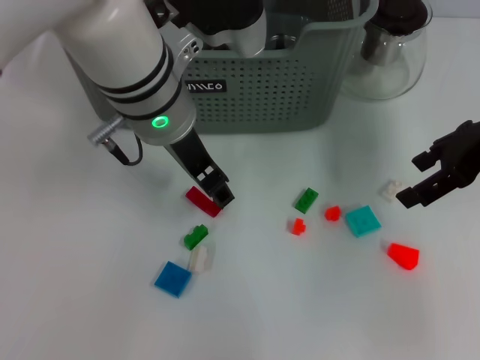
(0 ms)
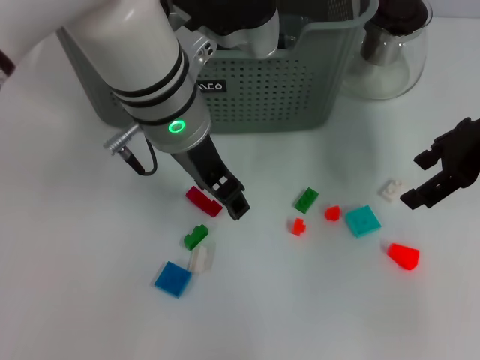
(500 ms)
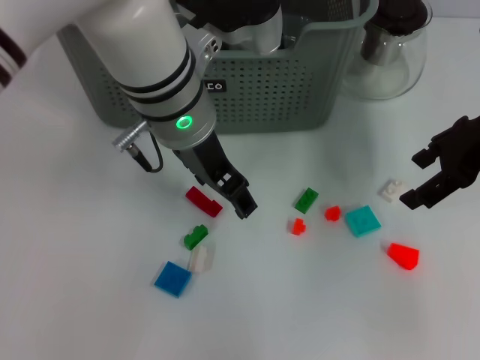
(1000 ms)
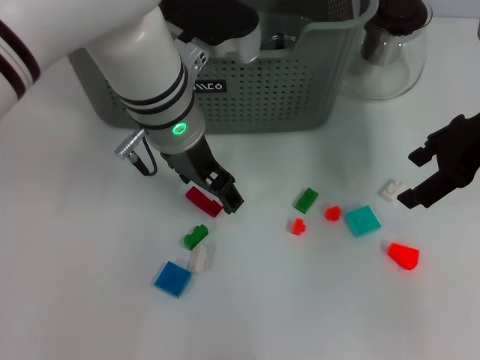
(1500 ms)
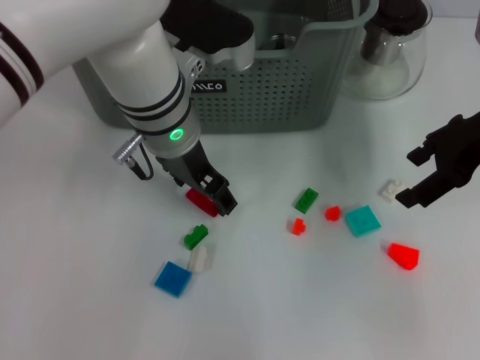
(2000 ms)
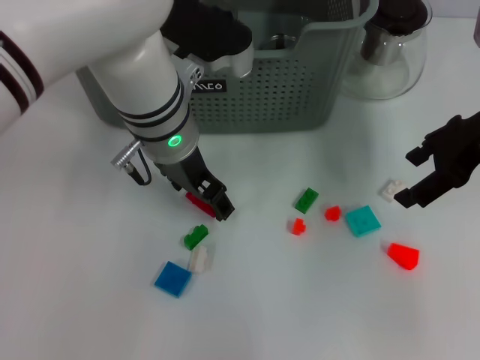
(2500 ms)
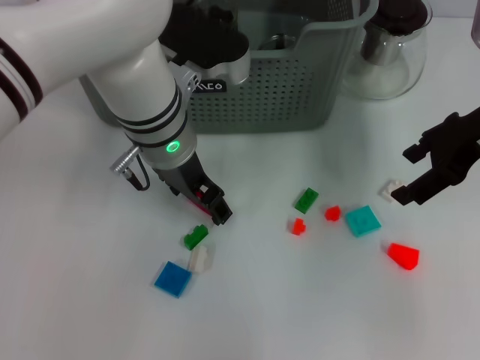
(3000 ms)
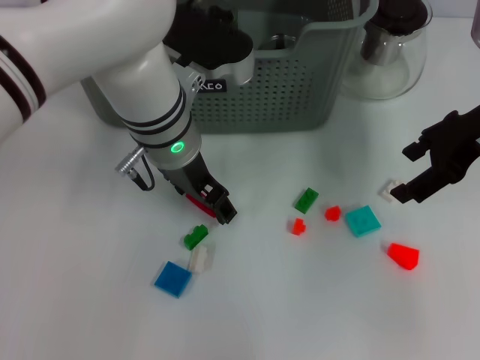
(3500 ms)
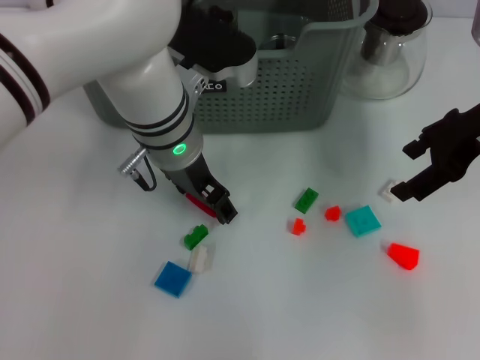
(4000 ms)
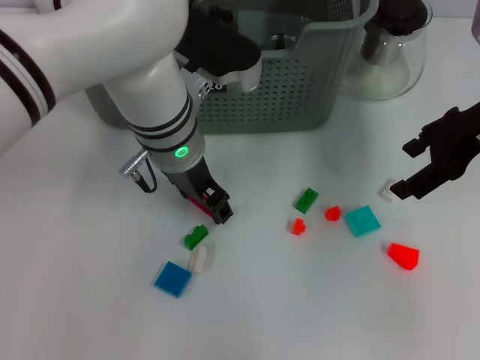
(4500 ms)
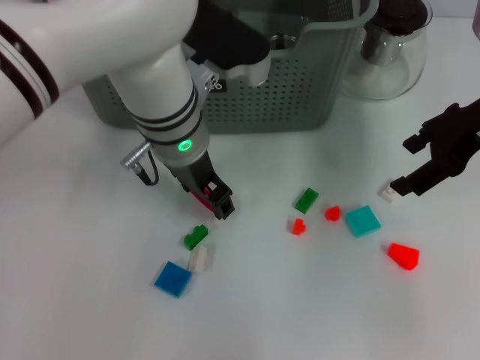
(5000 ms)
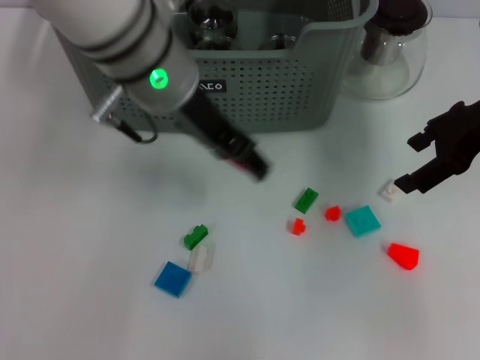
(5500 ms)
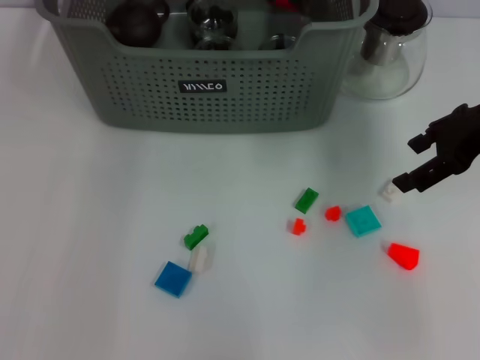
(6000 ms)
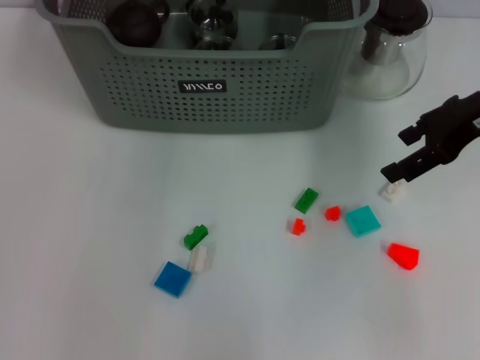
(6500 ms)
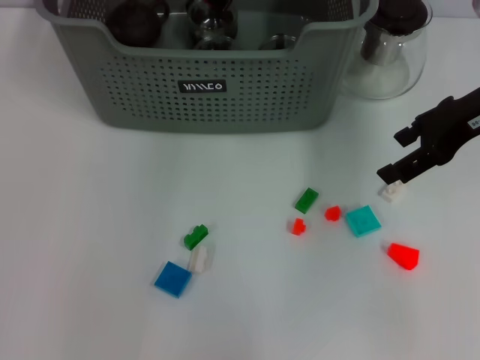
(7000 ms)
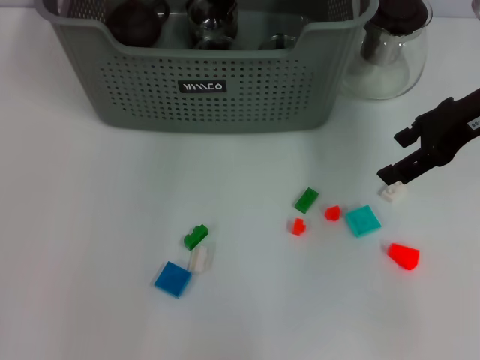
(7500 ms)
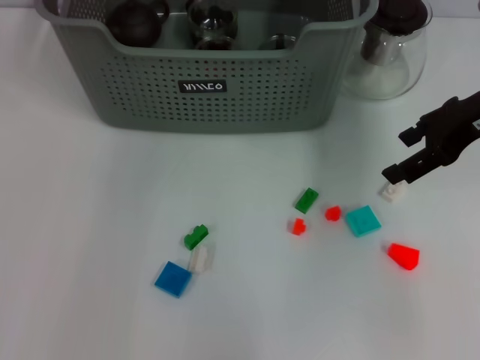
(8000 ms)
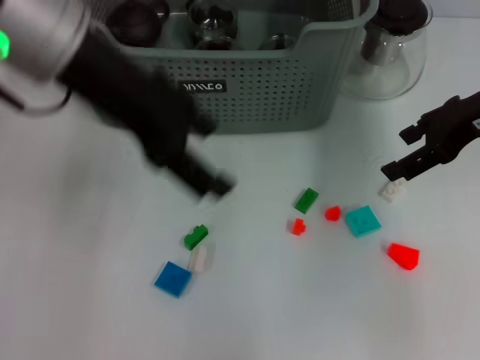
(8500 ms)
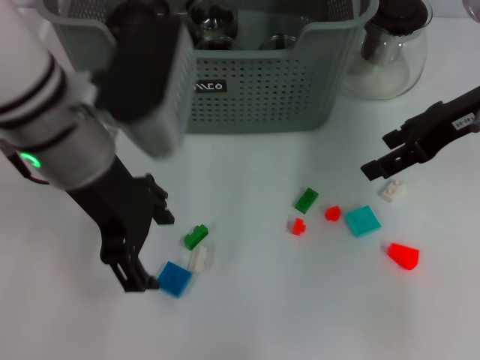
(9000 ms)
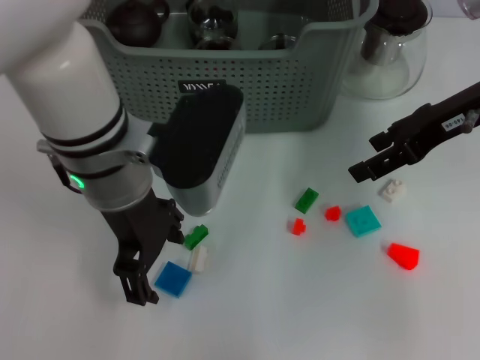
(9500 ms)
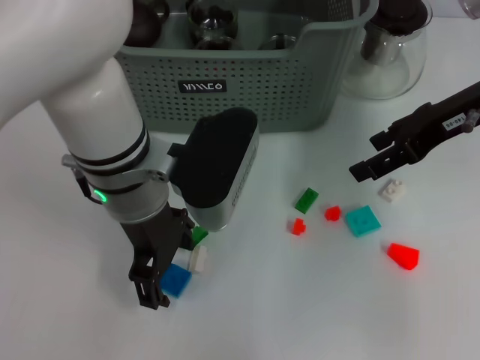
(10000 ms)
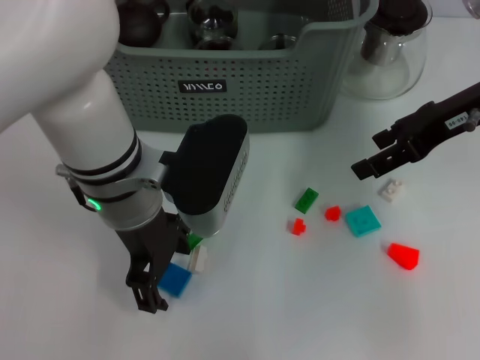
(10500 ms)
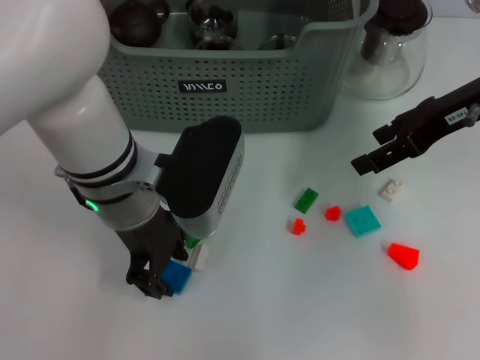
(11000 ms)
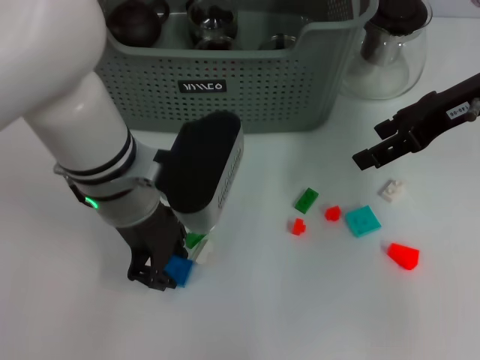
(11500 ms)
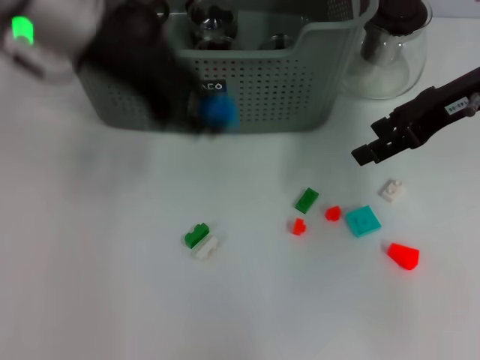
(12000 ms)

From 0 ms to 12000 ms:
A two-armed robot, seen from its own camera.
Task of the whole recording: pick up the teacup on the table and place it into the storage bin, pick up the block on the table and place it into the storage bin.
Step, from 0 ms to 5000 ms: Grasp the red block with left gripper.
Step, from 5500 ms to 8000 ms: Place the red block in the storage box with left gripper.
Step, from 8500 ms to 11000 ms: Grasp the dark blue block with left gripper.
From 0 ms to 4000 ms: The grippers make only small movements.
From 4000 ms to 6000 ms: The left gripper goes approximately 20 cm upward.
From 8000 ms to 10000 ms: The left gripper travels downward and backward by about 20 cm.
From 10000 ms to 12000 ms: The left gripper moves upward, to the left and forward, about 15 cm, and closes its fingers.

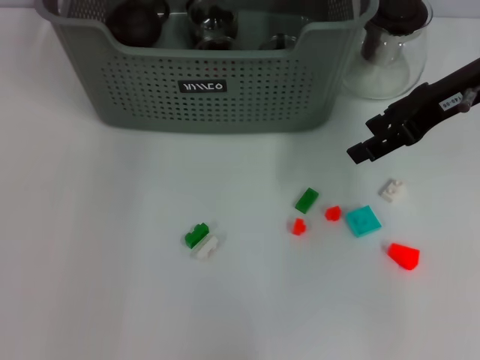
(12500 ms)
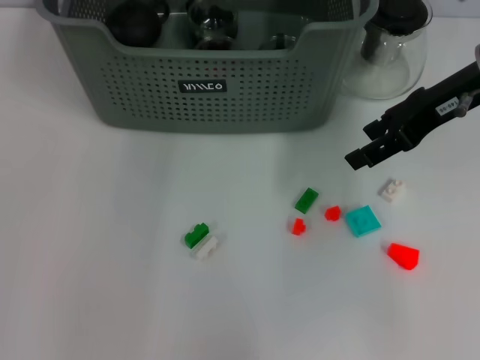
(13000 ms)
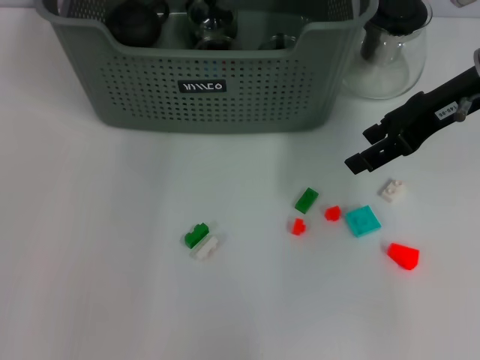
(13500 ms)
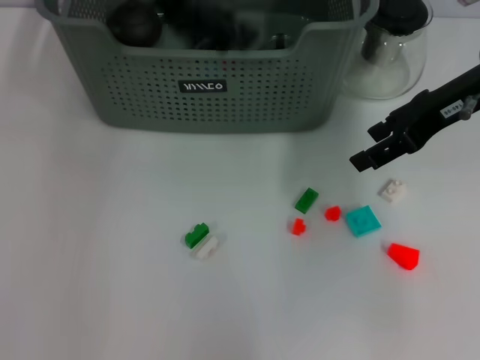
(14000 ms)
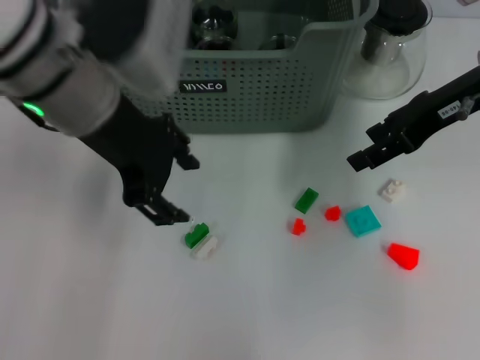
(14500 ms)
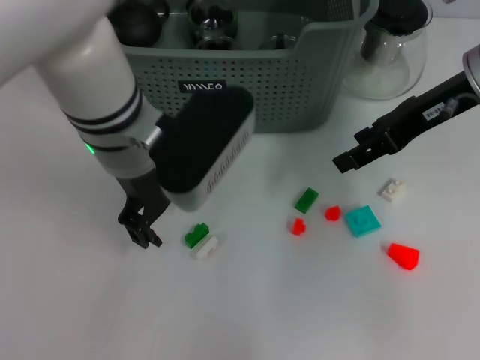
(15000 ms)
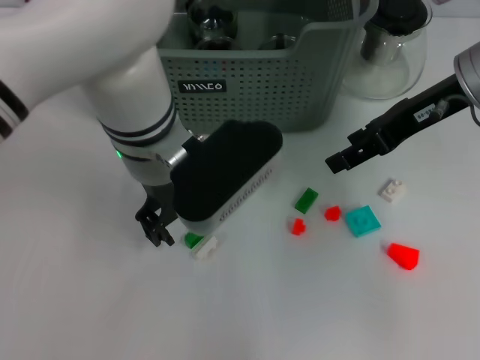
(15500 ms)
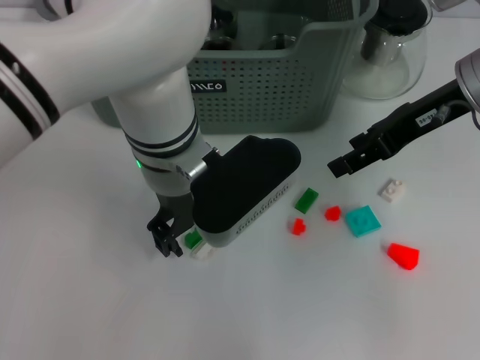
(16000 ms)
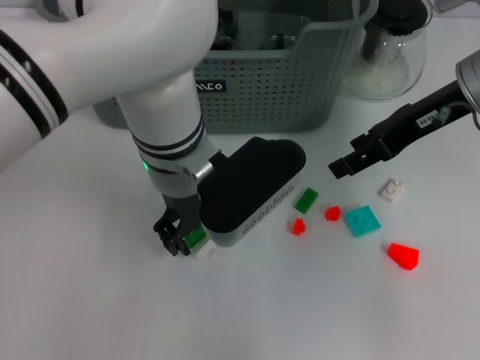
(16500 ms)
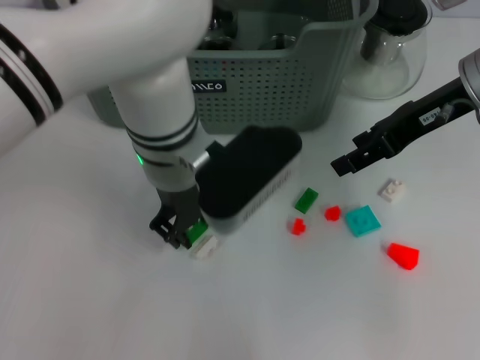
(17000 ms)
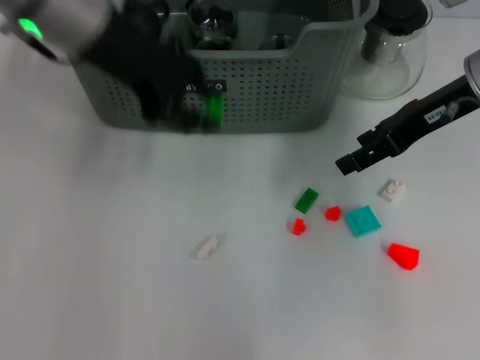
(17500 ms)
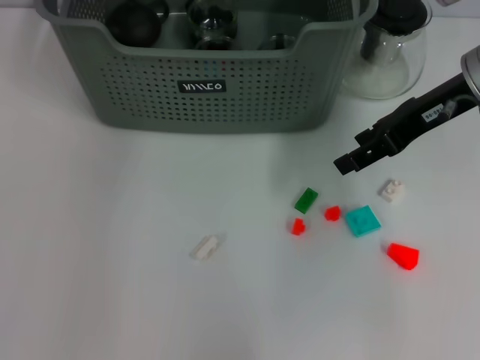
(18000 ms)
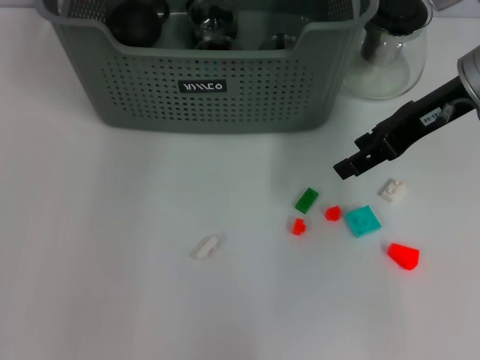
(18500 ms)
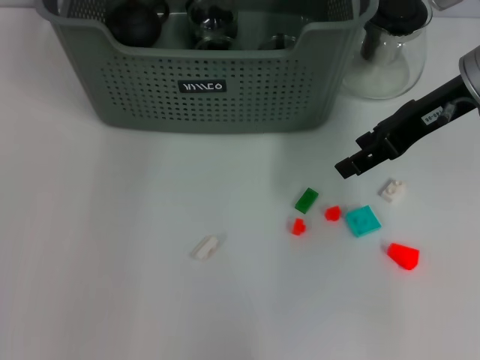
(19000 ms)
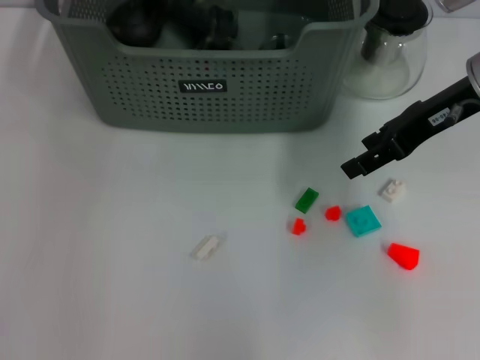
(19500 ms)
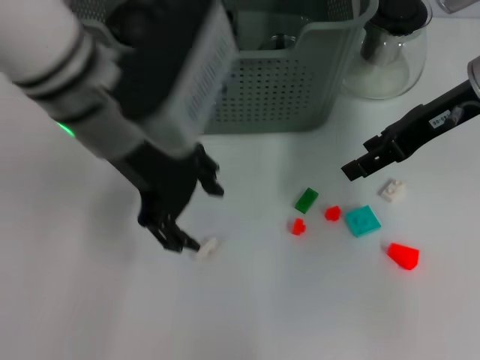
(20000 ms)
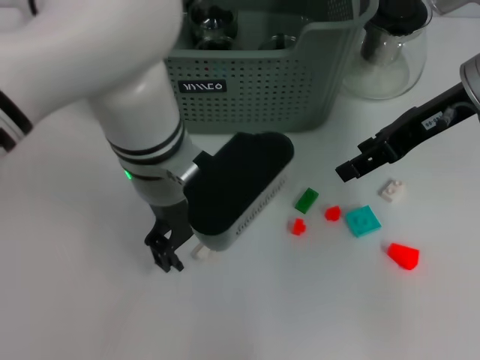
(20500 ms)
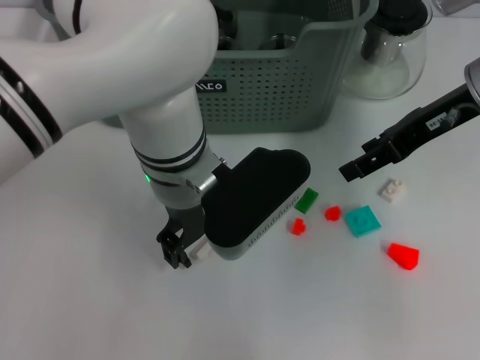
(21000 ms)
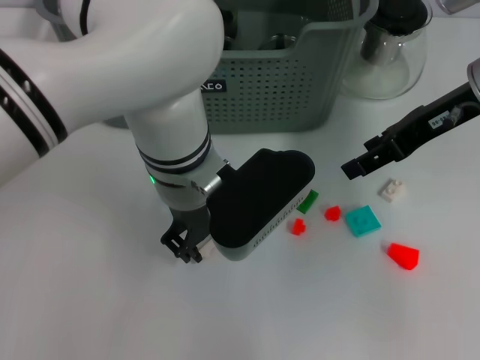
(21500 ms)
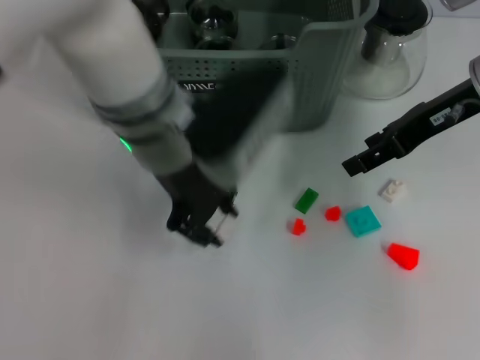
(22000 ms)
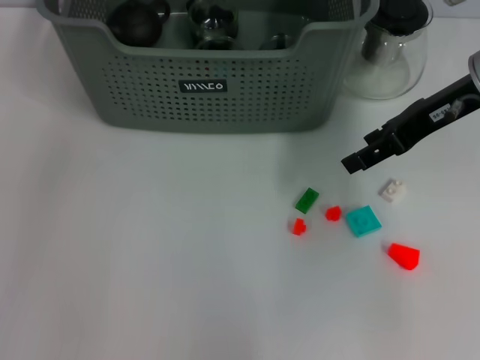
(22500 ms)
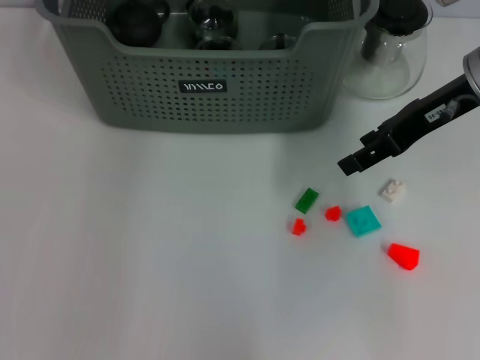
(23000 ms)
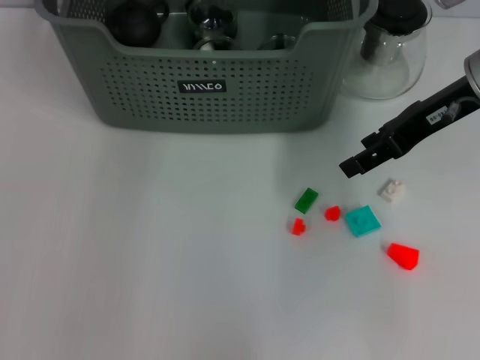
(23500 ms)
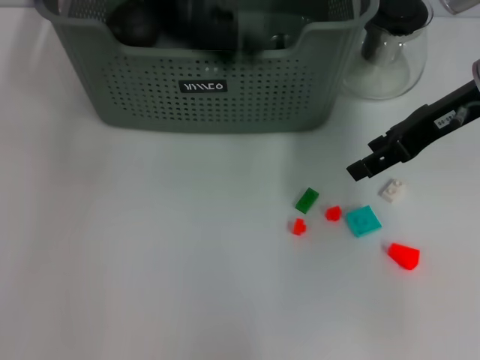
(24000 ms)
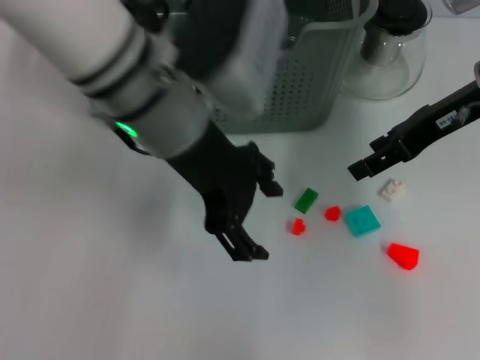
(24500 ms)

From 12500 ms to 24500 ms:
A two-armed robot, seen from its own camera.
Task of the whole recording: pick up the teacup on the table and place it into the storage bin, pick up the block on the table and place it into the storage bin.
Step, from 14000 ms to 16500 ms: Grasp the green block with left gripper.
Step, from 17000 ms to 19000 ms: Place the green block in the storage box with left gripper.
Step, from 19500 ms to 21000 ms: Grasp the white block with left gripper.
Step, from 22000 ms to 23500 ms: Place the white block in the storage box with left gripper.
From 12500 ms to 14500 ms: The left gripper shifts approximately 15 cm backward and downward, and opens its fingers.
From 14500 ms to 16500 ms: The left gripper travels downward and to the right by approximately 10 cm.
From 16500 ms to 18500 ms: The left gripper is displaced forward, upward and to the left by roughly 20 cm.
From 18500 ms to 20500 ms: The left gripper heads backward, downward and to the right, covering about 20 cm.
From 20500 ms to 22500 ms: The left gripper is displaced upward, to the left and forward by roughly 25 cm, and closes its fingers.
From 22500 ms to 24500 ms: The left gripper shifts roughly 20 cm to the right, downward and backward, and opens up.

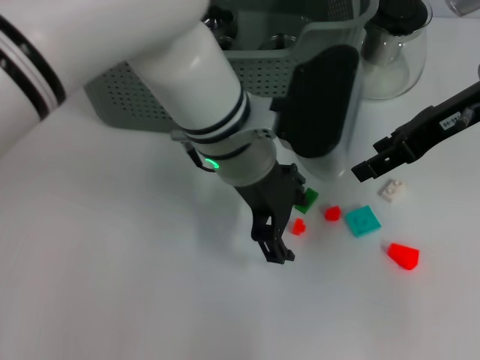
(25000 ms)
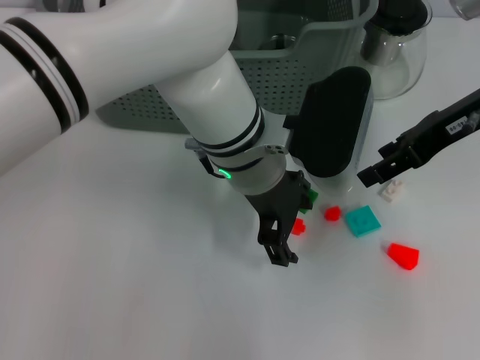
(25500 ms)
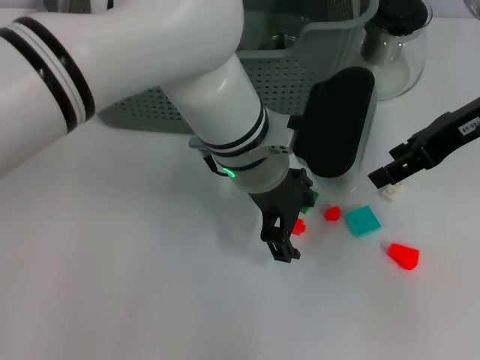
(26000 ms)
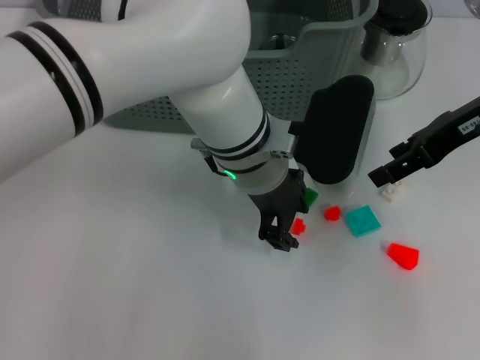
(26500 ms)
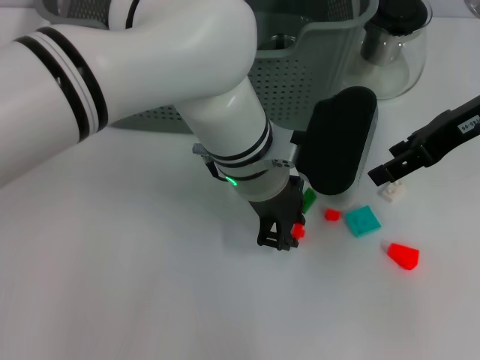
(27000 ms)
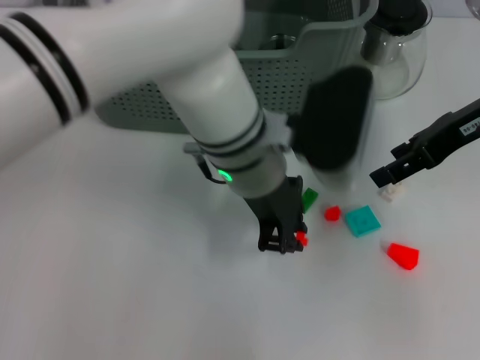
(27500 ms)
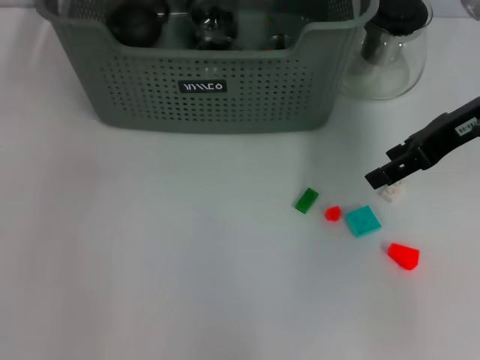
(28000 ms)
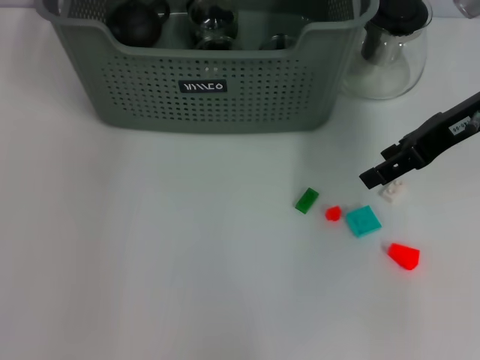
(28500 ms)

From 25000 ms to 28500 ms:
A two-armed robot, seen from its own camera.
Task of the whole recording: pick up the teacup on the table and place it into the storage bin, pick up the block on the table and place it into the storage bin.
Step, from 25000 ms to 27500 ms: Grasp the orange block with left gripper.
From 25000 ms to 27000 ms: The left gripper closes up.
From 27000 ms to 28500 ms: The left gripper travels to the left, upward and forward by about 30 cm.
